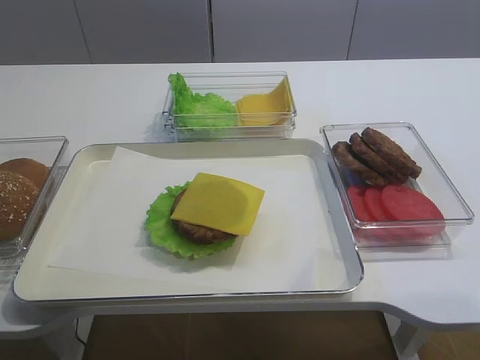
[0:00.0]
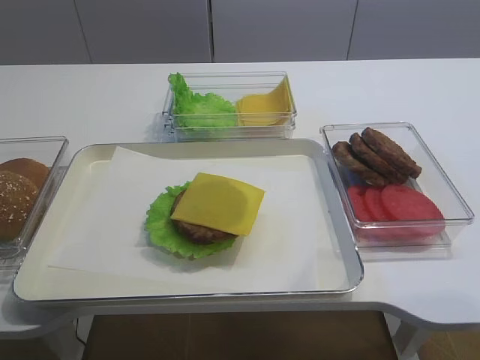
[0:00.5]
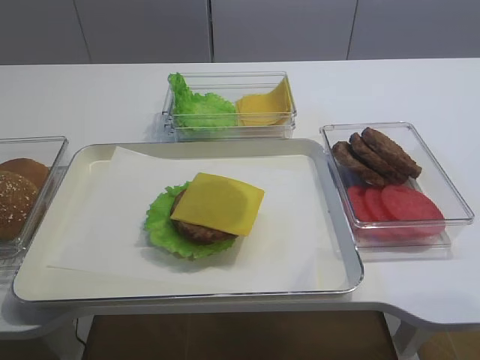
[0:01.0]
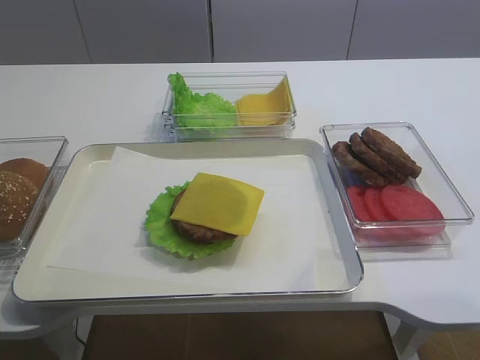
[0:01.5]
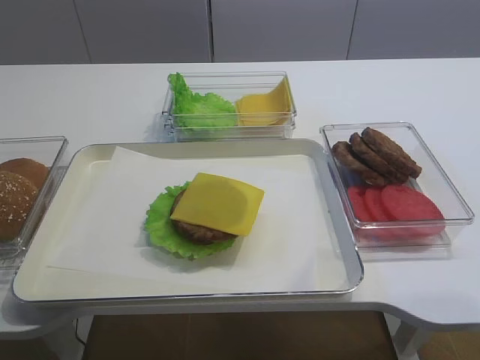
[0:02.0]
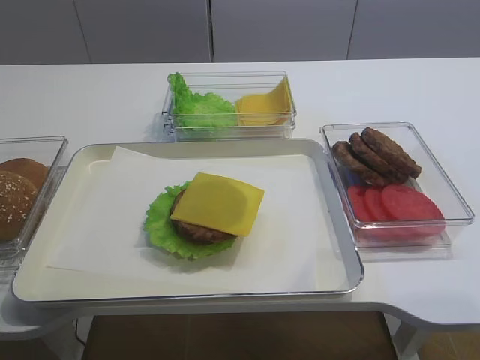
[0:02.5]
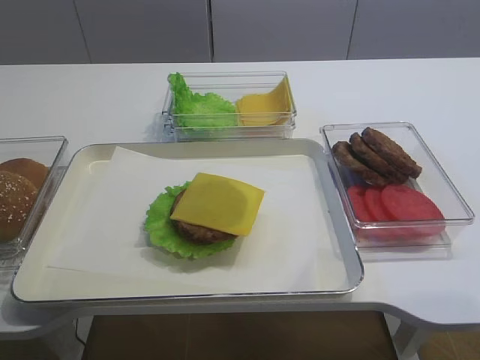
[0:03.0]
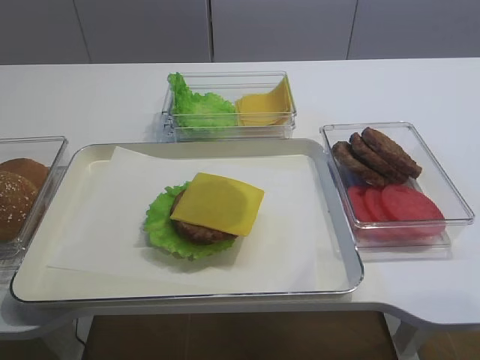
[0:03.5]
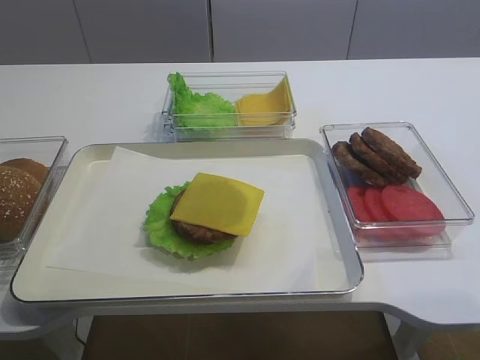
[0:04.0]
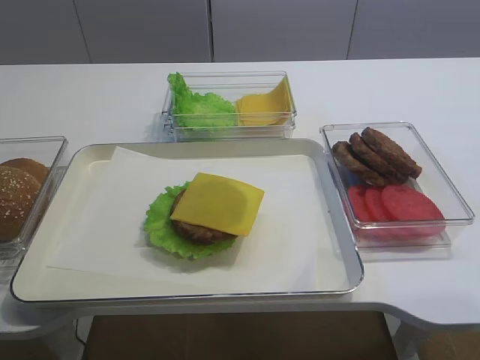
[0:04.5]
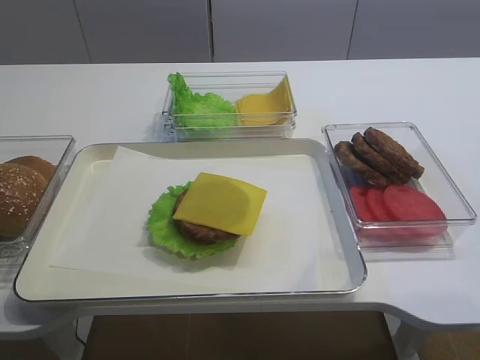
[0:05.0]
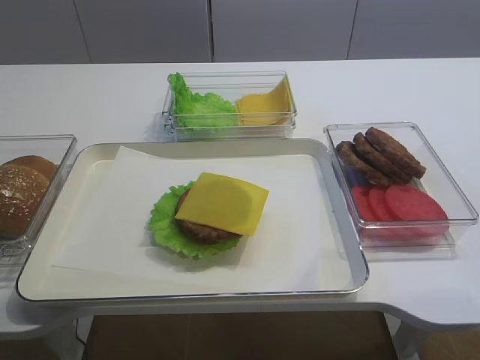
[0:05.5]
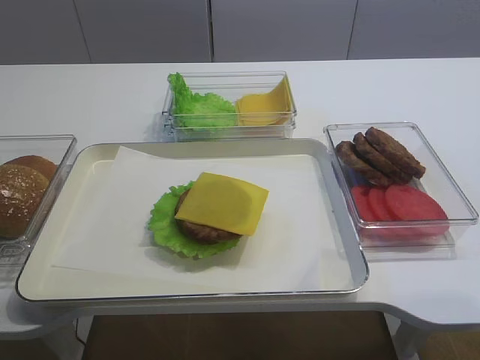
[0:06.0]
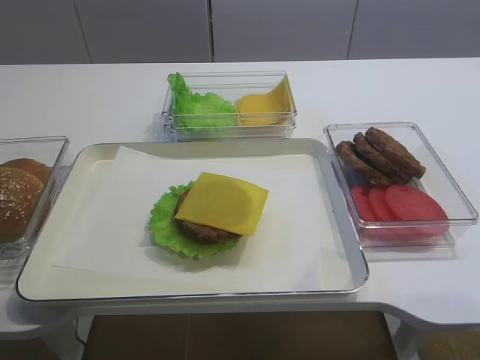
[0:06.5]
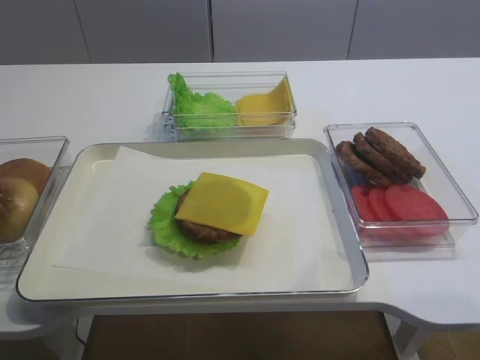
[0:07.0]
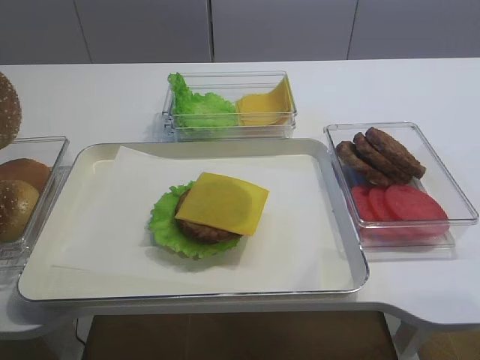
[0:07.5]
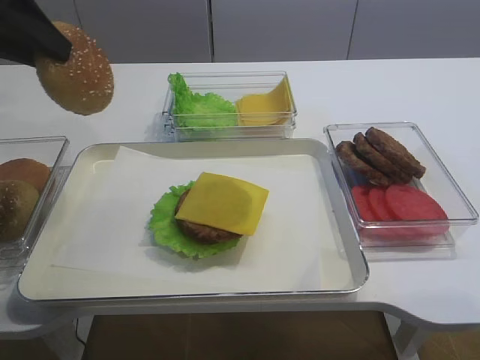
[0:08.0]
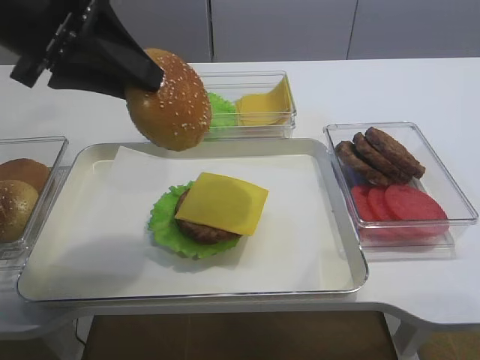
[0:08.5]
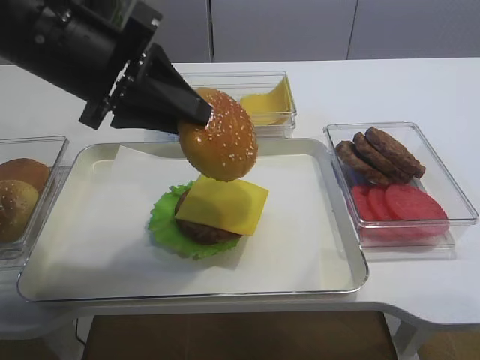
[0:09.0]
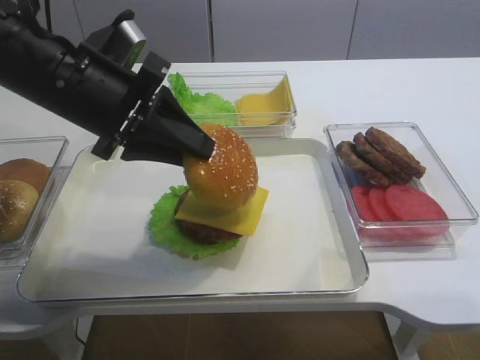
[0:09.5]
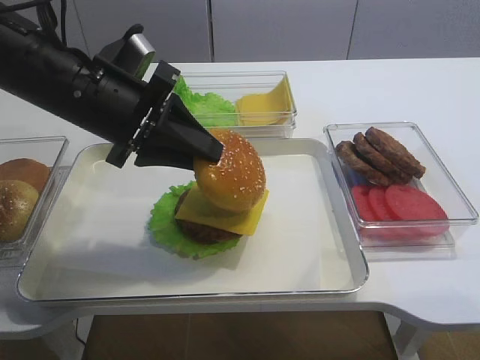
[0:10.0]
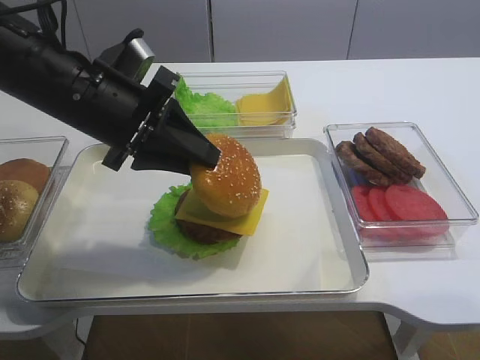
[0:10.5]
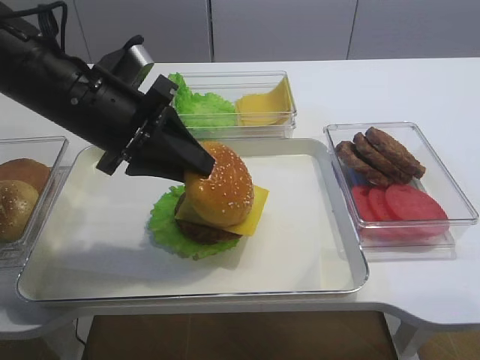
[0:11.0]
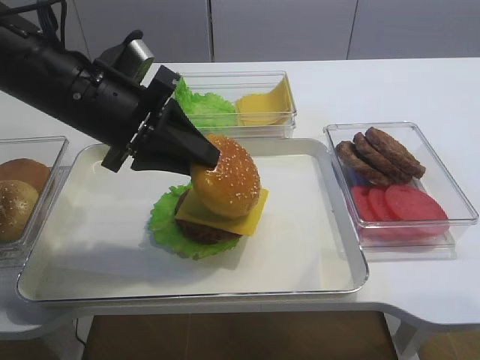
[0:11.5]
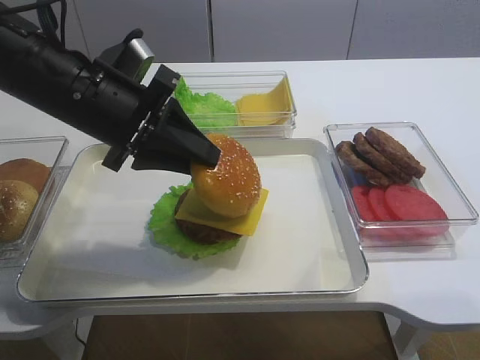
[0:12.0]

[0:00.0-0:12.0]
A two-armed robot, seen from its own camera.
Step, 0:00.0 to 0:07.0: Pick up the hamburger lid with the left gripper.
0:04.0 to 0:06.0: The grippers move only a little.
0:06.0 to 0:08.0: The left gripper goes about 15 cm upward and to the right.
0:08.0 to 0:10.0: The left gripper moves downward and to the right, approximately 15 cm.
0:10.0 to 0:12.0: Both grippers stay about where they are.

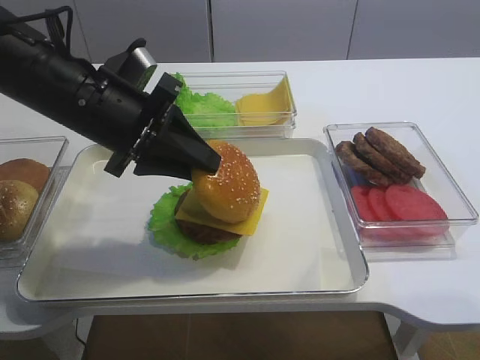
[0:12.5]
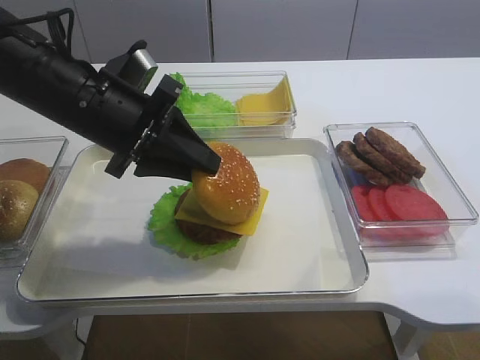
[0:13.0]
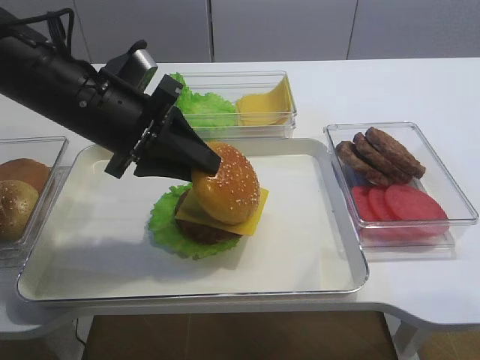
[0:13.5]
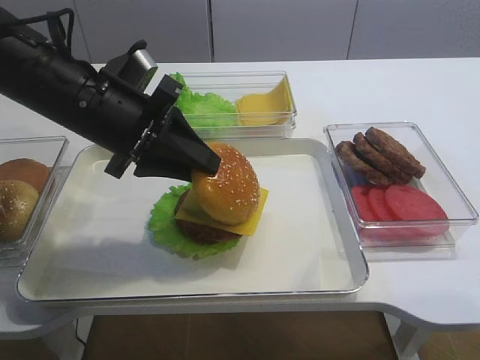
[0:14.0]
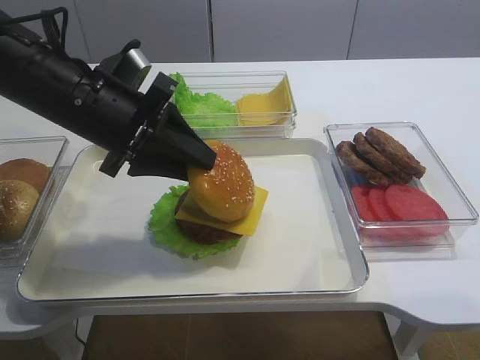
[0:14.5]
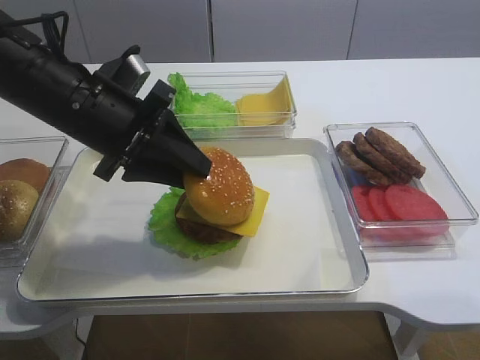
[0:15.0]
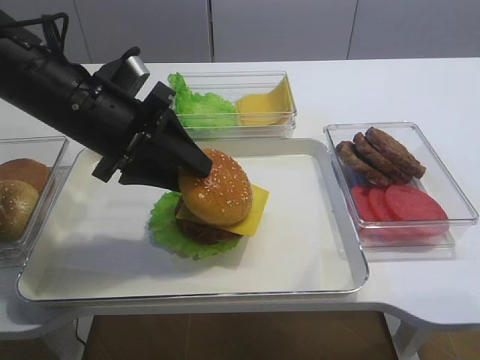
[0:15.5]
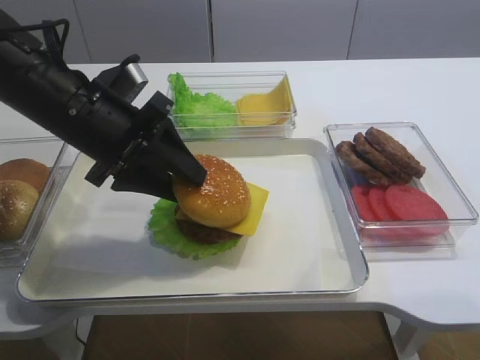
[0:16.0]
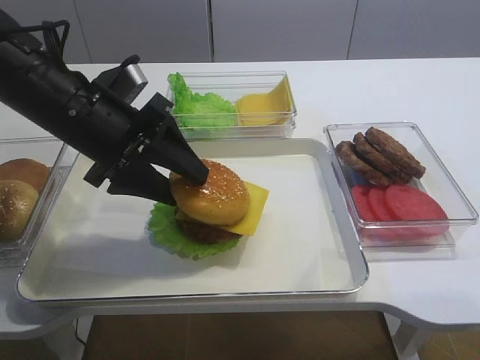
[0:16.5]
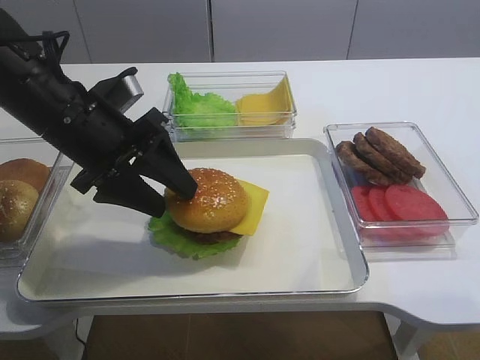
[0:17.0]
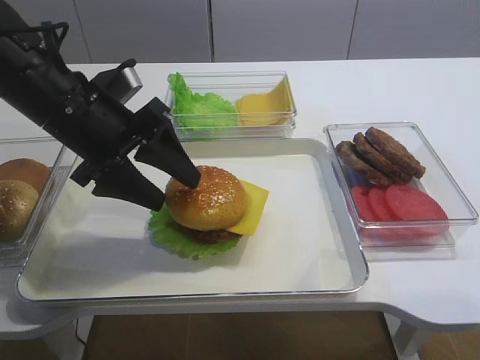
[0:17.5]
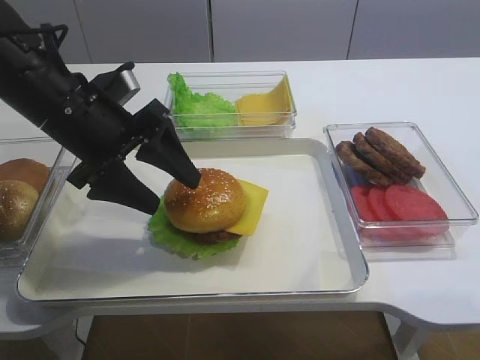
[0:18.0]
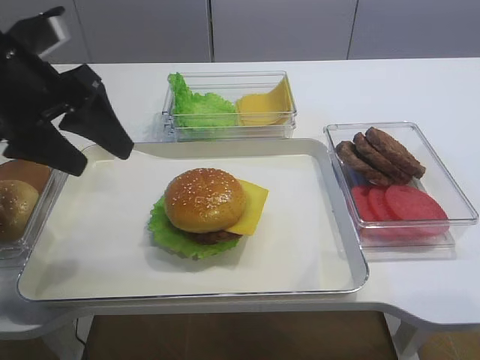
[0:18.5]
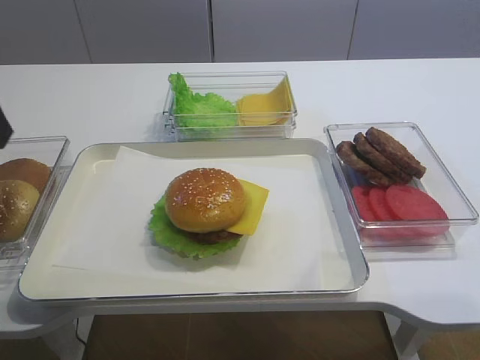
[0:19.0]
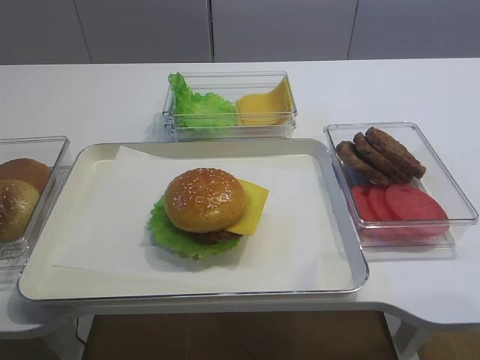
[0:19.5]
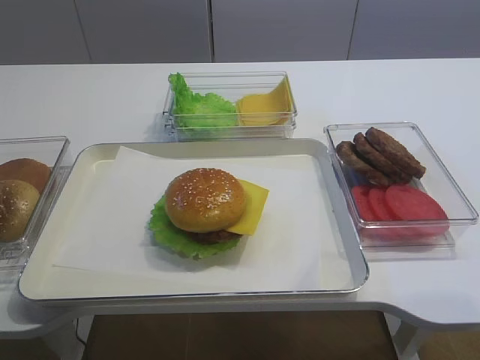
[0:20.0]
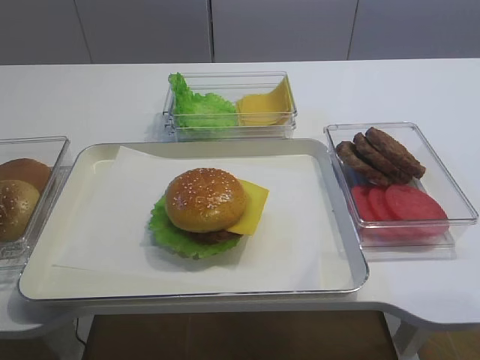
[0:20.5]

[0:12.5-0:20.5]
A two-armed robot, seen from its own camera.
Step, 0:12.5 to 0:17.5: Place the hamburger lid on the cheese slice with the left gripper.
0:12.5 to 0:14.5: Both grippers stay about where they are.
0:14.5 to 0:16.5: The left gripper opens.
0:16.5 to 0:18.5: The left gripper goes roughly 10 cm to the left and upward.
0:18.5 to 0:20.5: The left gripper goes roughly 30 cm backward, and closes its fingers.

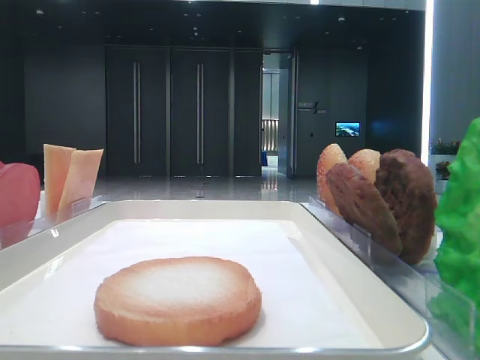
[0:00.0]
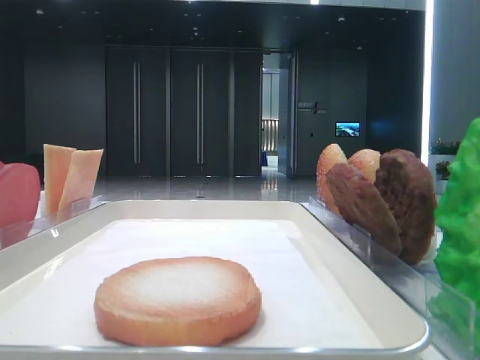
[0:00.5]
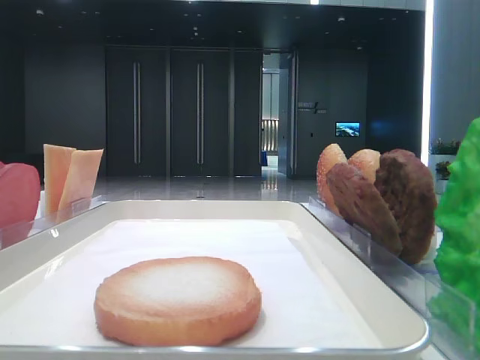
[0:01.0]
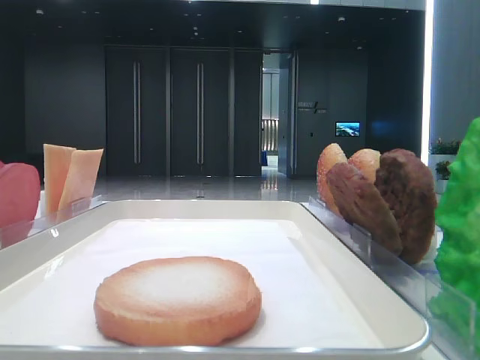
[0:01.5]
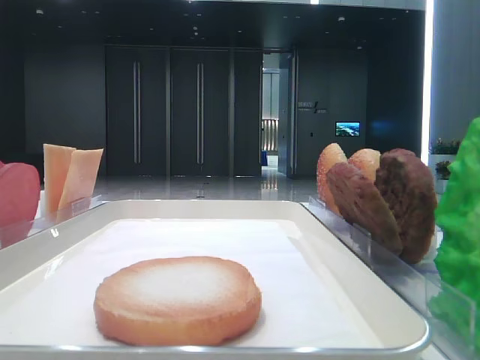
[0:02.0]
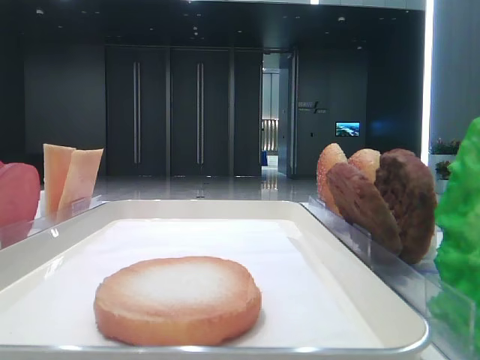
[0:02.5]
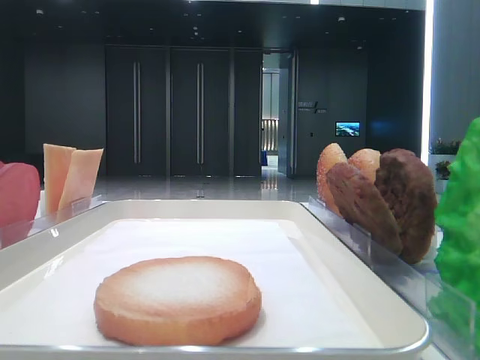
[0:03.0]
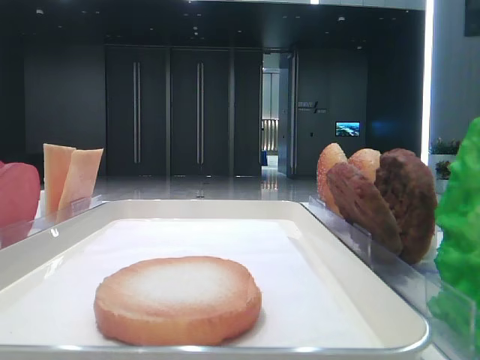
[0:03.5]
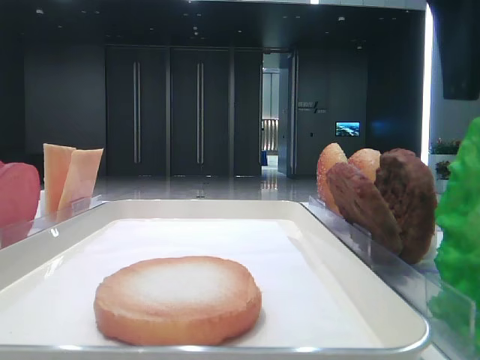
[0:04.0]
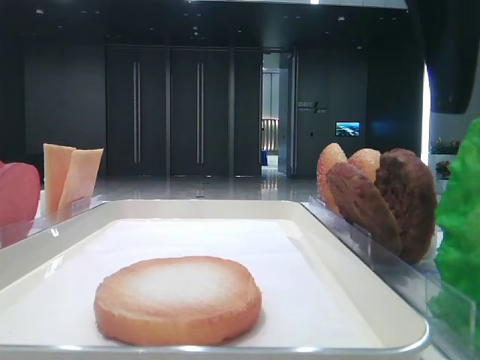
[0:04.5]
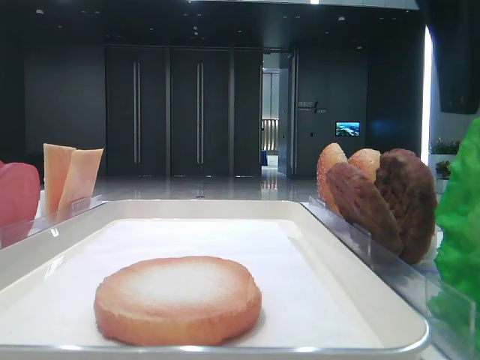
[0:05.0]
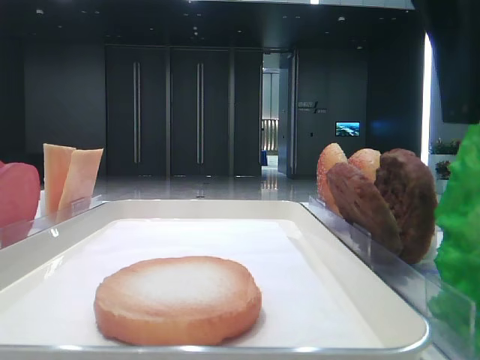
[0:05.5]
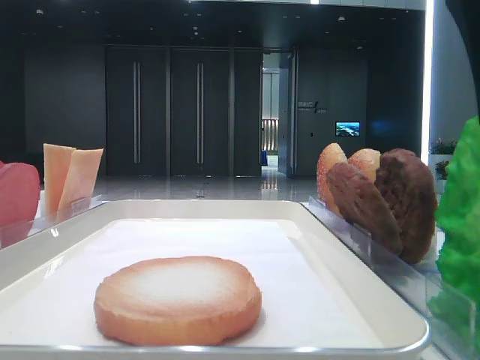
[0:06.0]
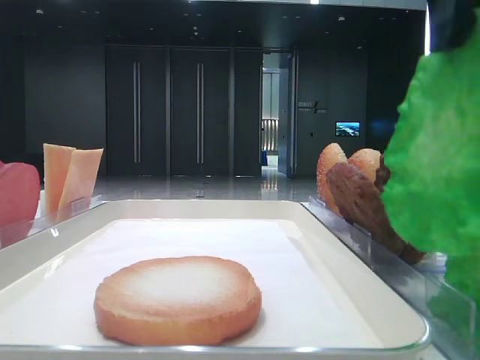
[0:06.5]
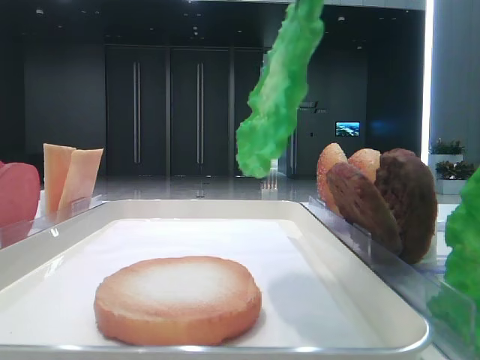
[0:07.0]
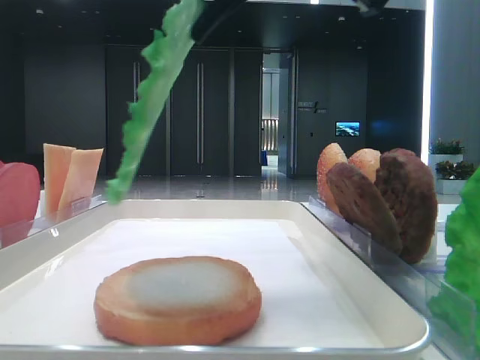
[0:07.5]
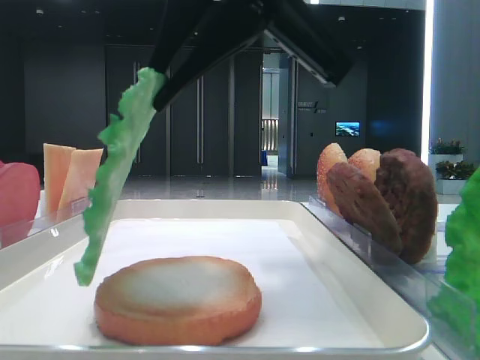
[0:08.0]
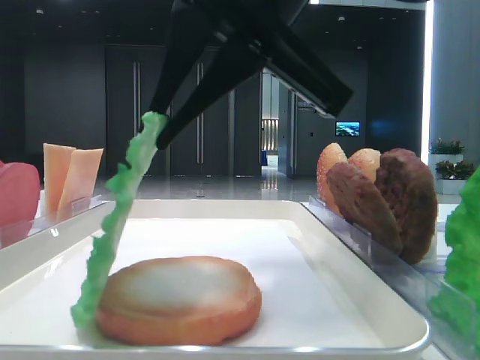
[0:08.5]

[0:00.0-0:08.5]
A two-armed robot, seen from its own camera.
Step, 0:00.0 to 0:06.0: Grab the lettuce leaf with the right hand.
0:02.0 to 0:04.0: The right gripper is displaced to the left, downward and forward by roughly 20 cm.
0:04.0 to 0:06.5: The right gripper closes its fingers.
0:06.5 to 0:08.5: The right gripper is displaced to the left and downward by some 10 cm.
